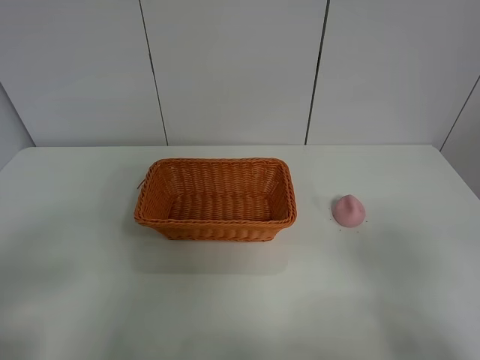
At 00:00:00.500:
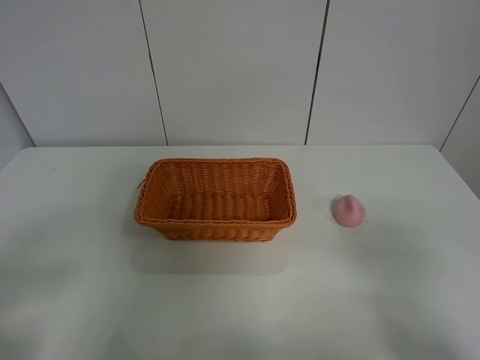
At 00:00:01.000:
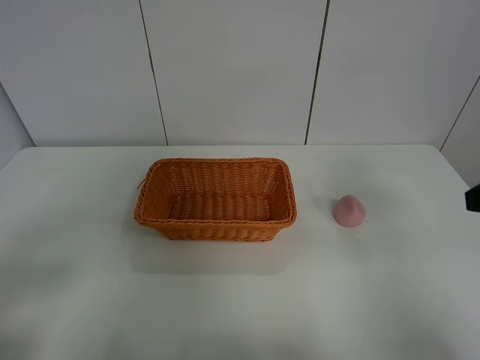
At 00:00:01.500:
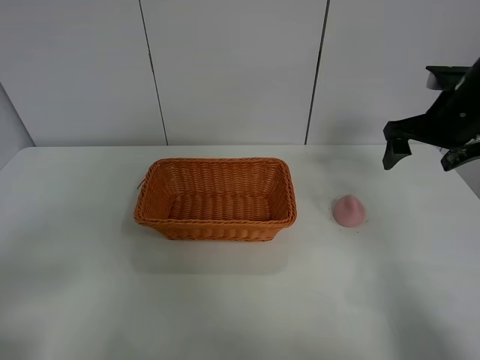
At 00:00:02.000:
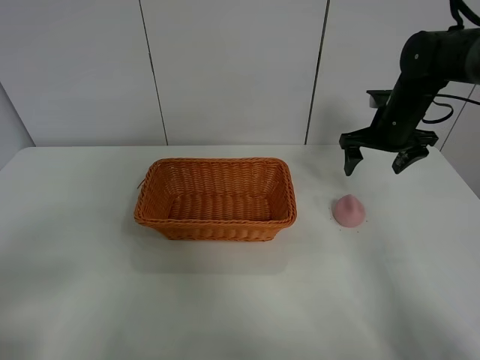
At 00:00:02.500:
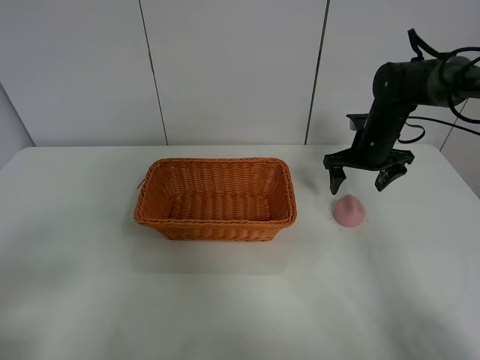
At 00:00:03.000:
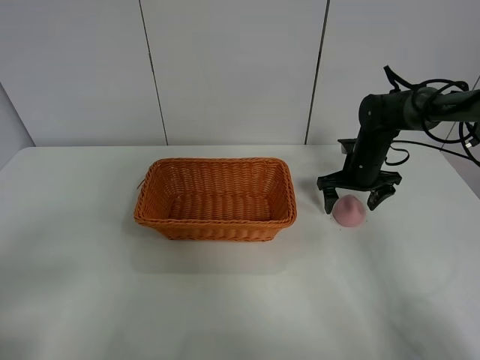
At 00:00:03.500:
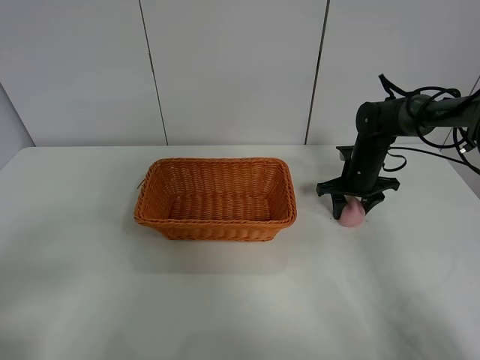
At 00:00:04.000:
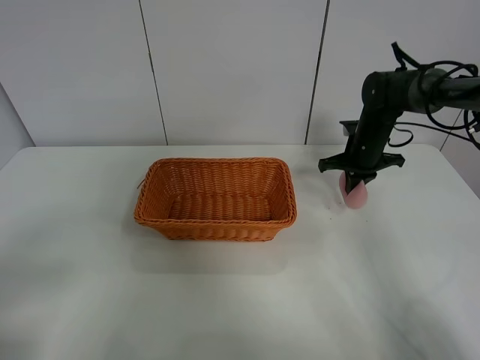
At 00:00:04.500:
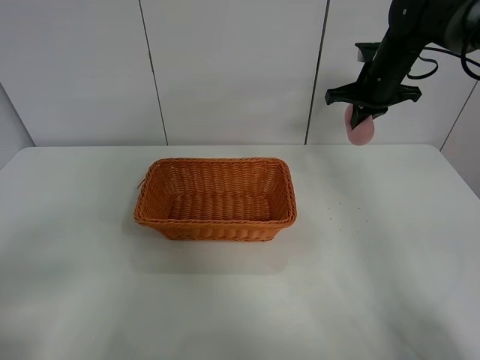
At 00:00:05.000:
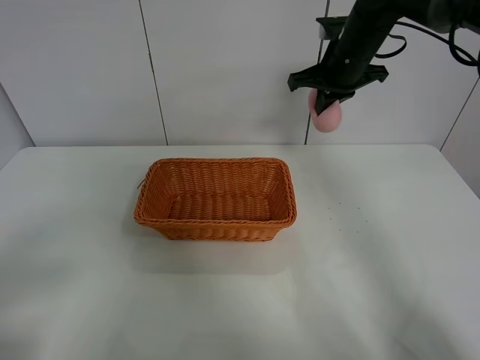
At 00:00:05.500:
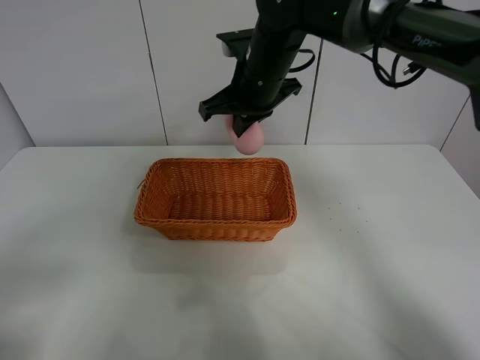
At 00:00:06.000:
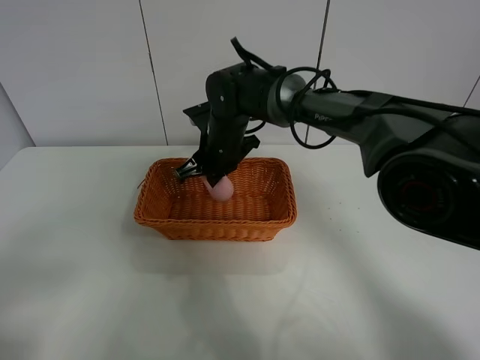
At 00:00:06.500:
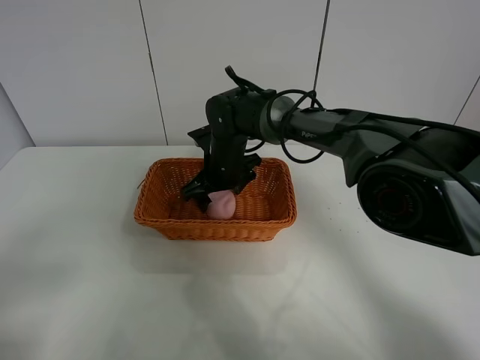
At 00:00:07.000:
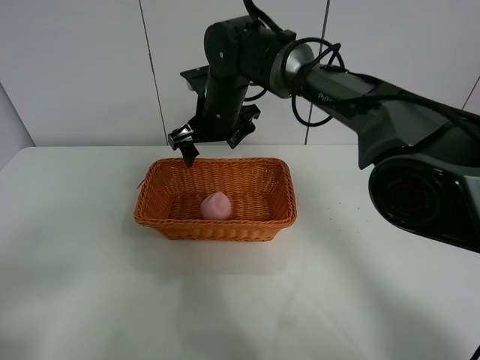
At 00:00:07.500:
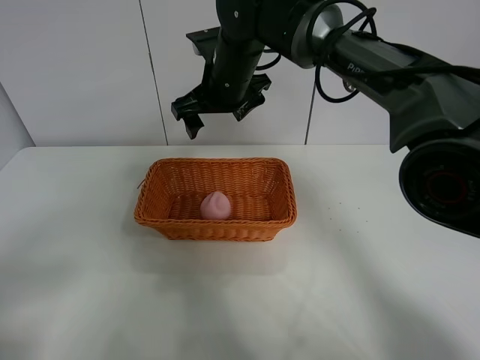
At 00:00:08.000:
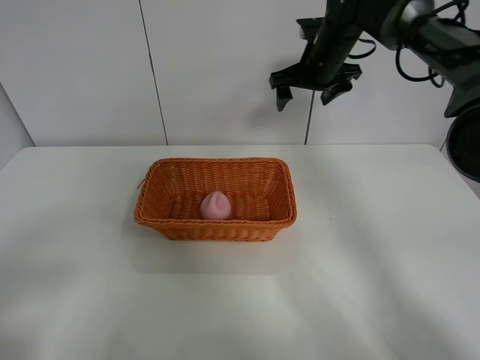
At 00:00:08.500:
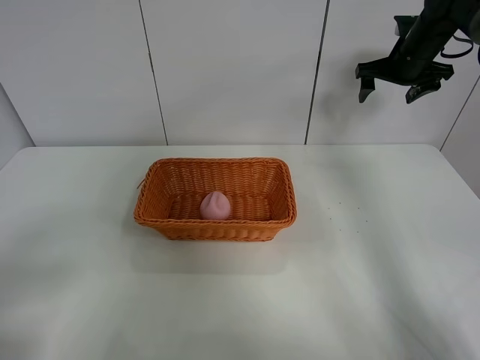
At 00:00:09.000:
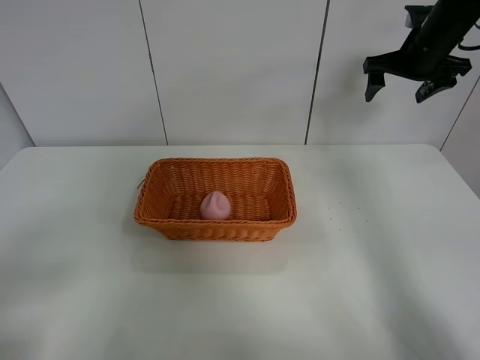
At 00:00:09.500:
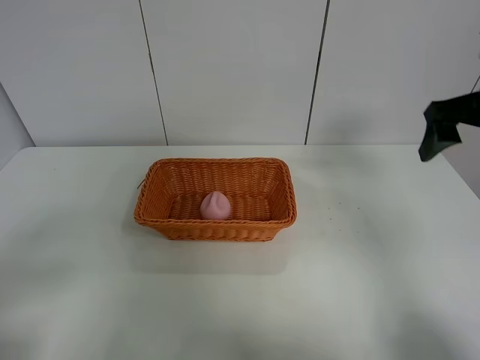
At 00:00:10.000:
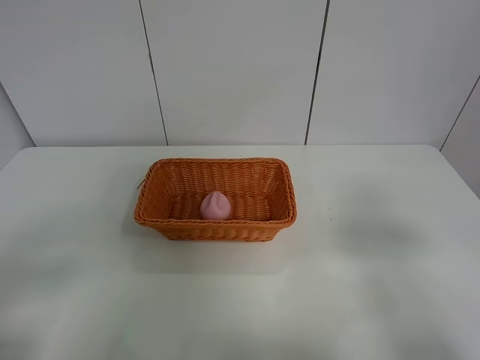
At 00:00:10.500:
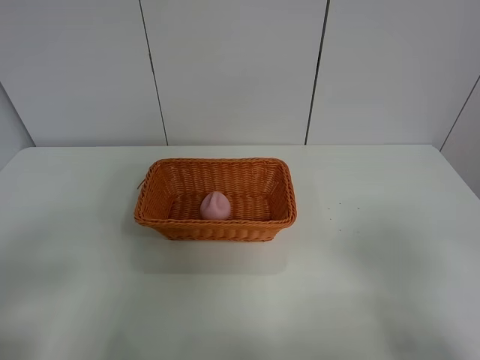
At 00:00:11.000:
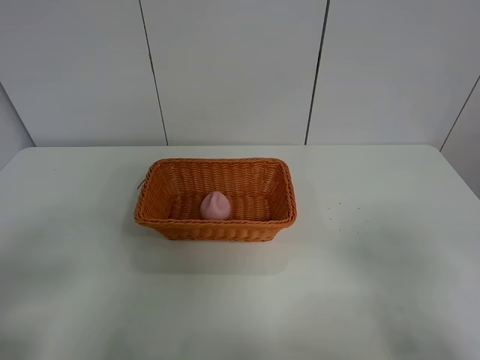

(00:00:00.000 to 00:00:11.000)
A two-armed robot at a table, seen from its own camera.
Step, 00:00:00.000 - 00:00:03.500: Grasp the peach with right gripper.
Step, 00:00:04.000 - 00:00:07.000: Place the peach in the basket with right gripper.
00:00:00.000 - 00:00:02.000: The right gripper goes roughly 40 cm forward.
00:00:02.000 - 00:00:03.500: The right gripper moves downward, about 10 cm, and closes.
00:00:03.500 - 00:00:05.500: The right gripper is displaced to the left and upward by roughly 30 cm, and closes.
00:00:05.500 - 00:00:07.500: The right gripper moves roughly 15 cm downward and comes back, and opens.
00:00:07.500 - 00:00:09.000: The right gripper shifts roughly 30 cm to the right.
00:00:09.000 - 00:00:11.000: The right gripper shifts approximately 50 cm backward.
